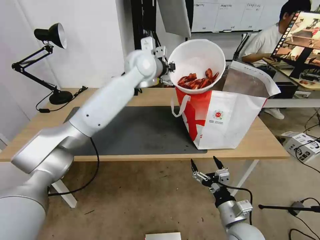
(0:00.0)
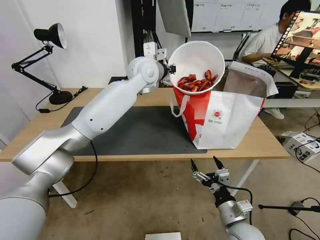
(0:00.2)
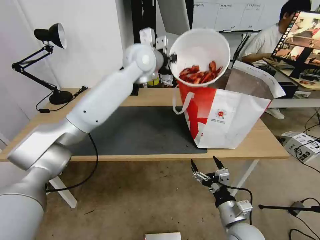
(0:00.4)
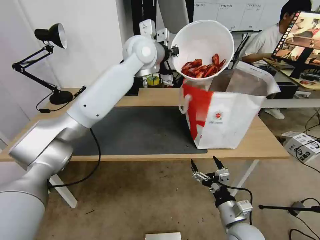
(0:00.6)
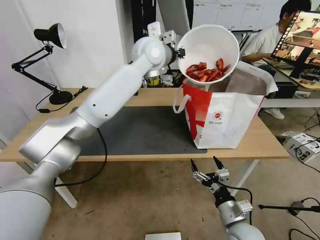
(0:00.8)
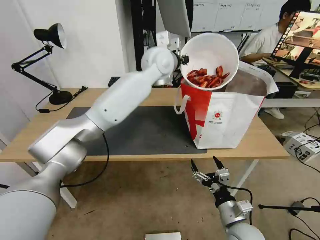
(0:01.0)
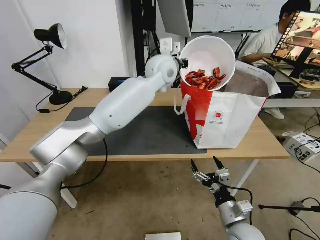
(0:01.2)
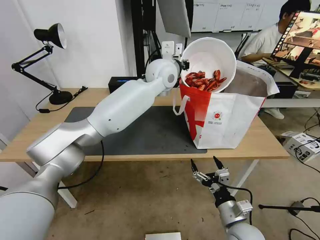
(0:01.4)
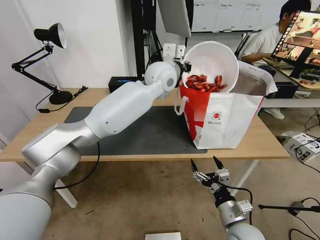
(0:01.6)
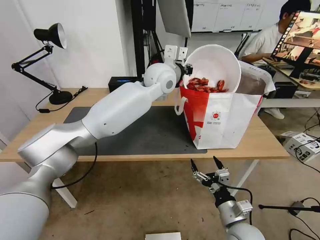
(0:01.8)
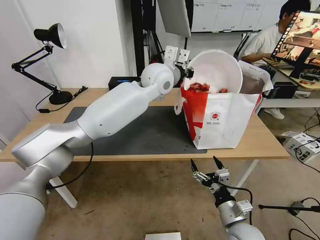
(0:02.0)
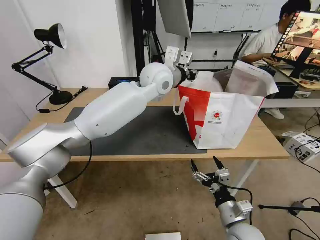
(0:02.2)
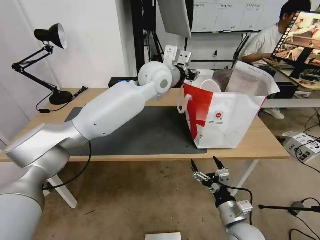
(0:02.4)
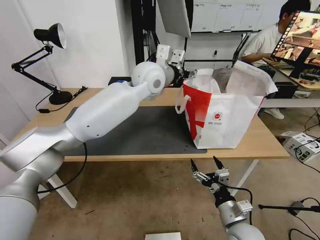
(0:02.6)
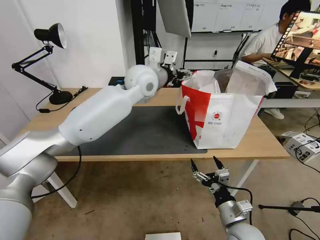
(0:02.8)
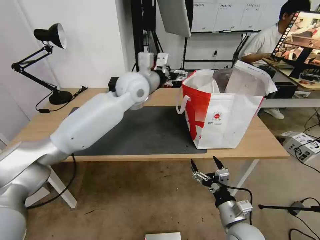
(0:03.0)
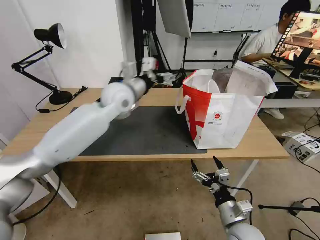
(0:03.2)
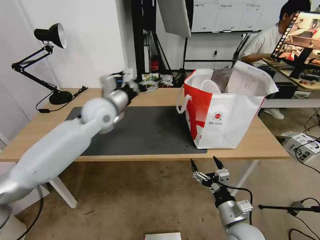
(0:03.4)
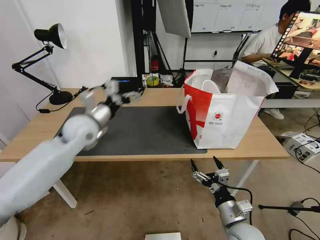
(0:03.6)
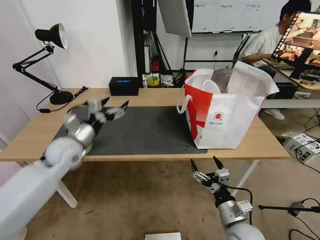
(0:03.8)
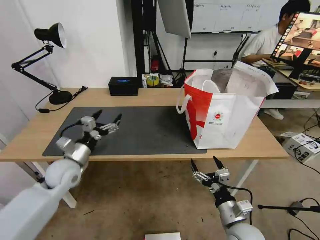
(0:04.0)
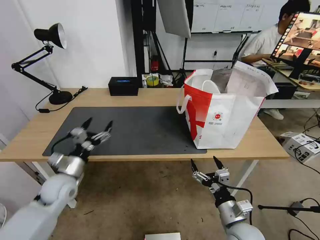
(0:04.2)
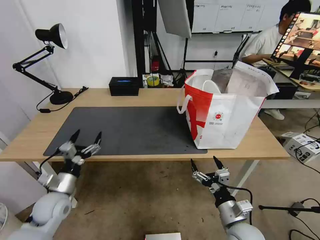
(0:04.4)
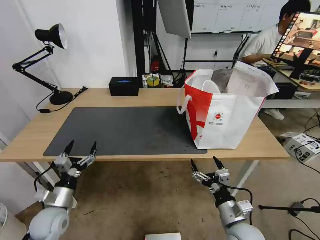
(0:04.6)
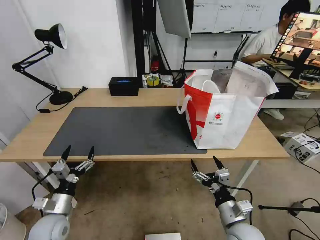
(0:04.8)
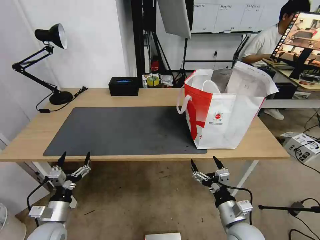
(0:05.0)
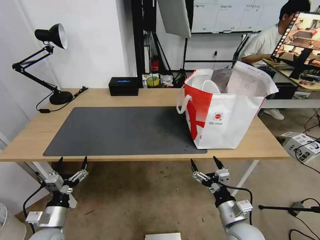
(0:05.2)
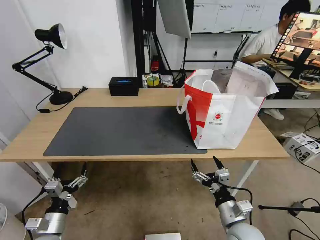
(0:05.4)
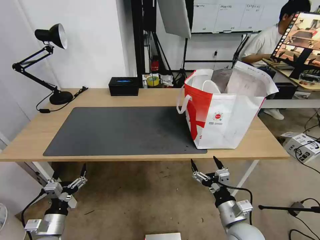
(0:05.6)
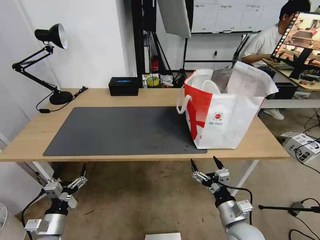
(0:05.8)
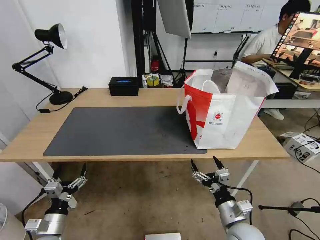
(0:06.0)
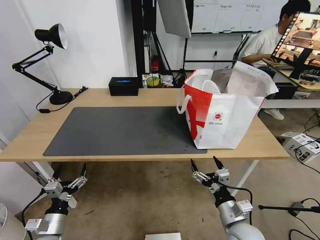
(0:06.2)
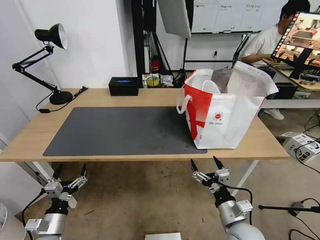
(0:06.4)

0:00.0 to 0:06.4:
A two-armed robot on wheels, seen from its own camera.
Task of the whole recording: Pick up the trash from the table and place it into the takeout bag.
0:00.0 to 0:01.6: The left gripper travels to the right by some 5 cm.
0:01.6 to 0:03.2: The left gripper goes roughly 15 cm to the left, and opens its fingers.
0:03.2 to 0:04.8: The left gripper moves downward, backward and to the left, roughly 50 cm.
0:04.8 to 0:06.4: The left gripper moves some 5 cm.
